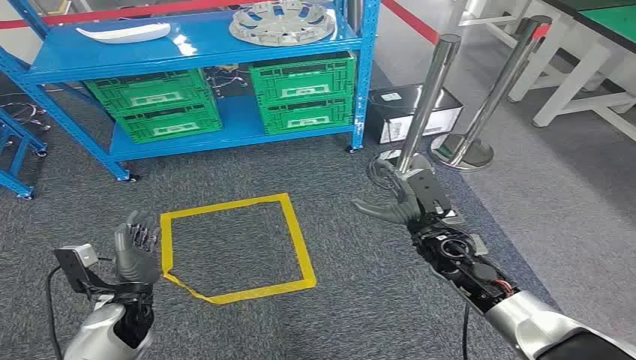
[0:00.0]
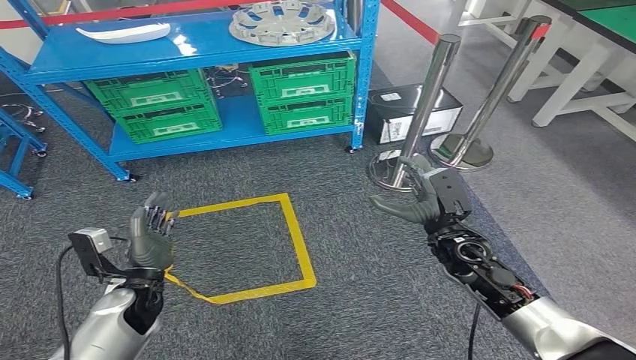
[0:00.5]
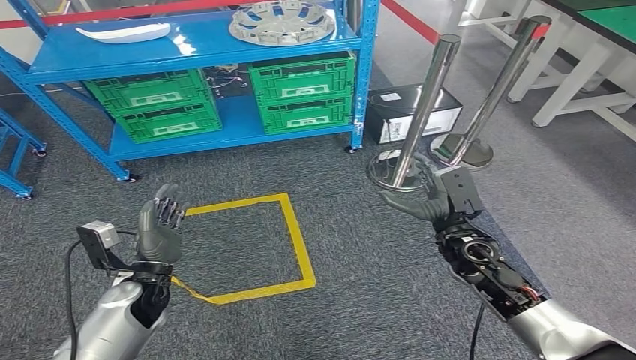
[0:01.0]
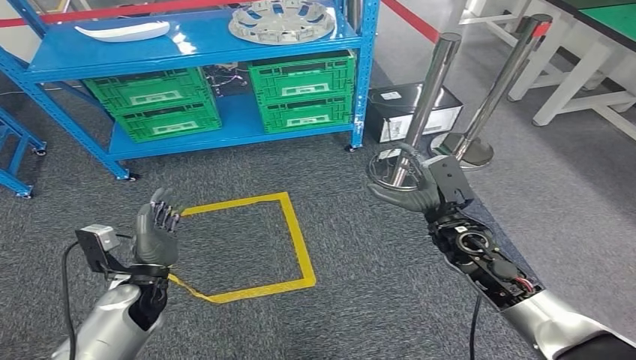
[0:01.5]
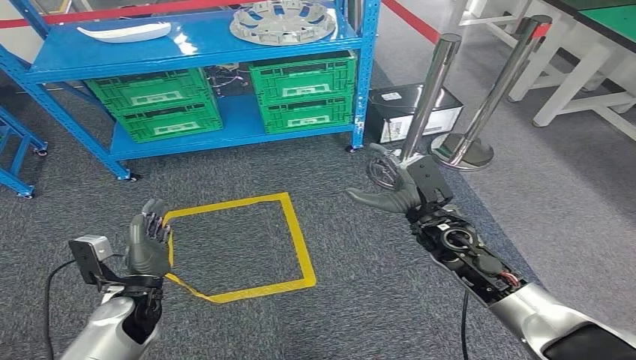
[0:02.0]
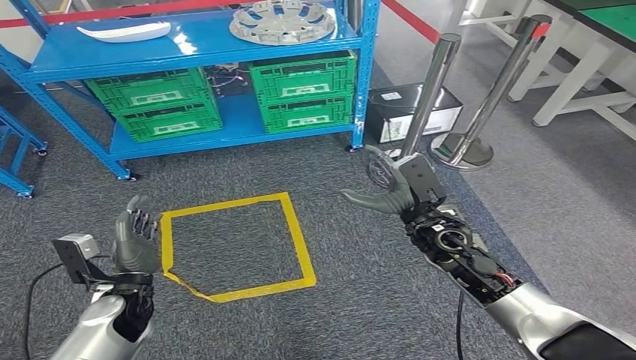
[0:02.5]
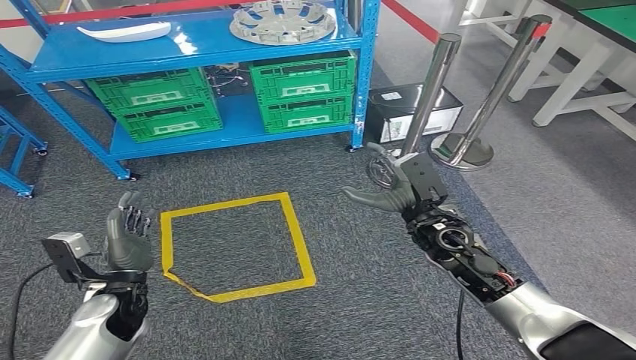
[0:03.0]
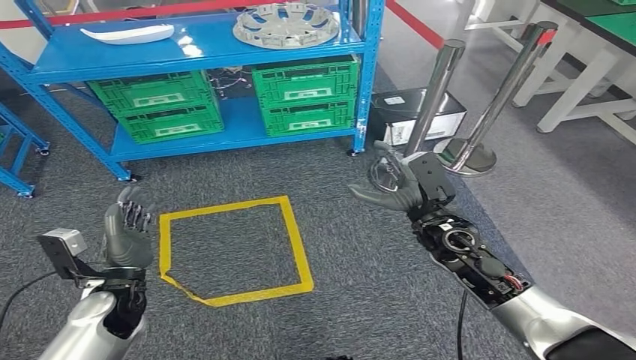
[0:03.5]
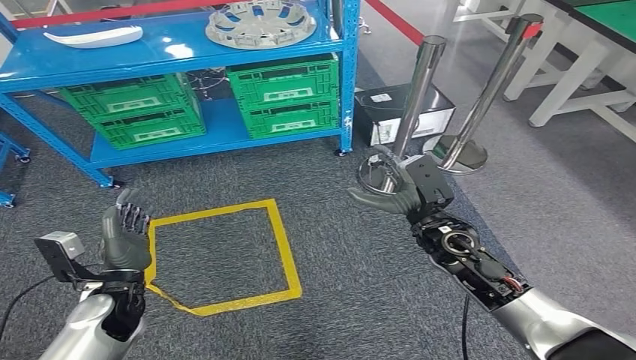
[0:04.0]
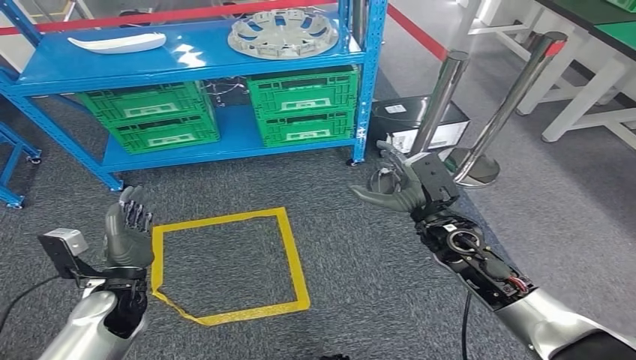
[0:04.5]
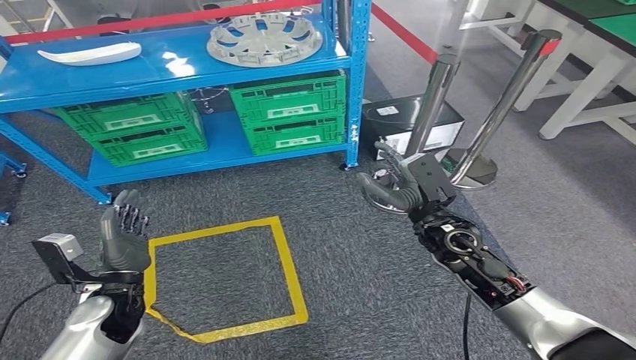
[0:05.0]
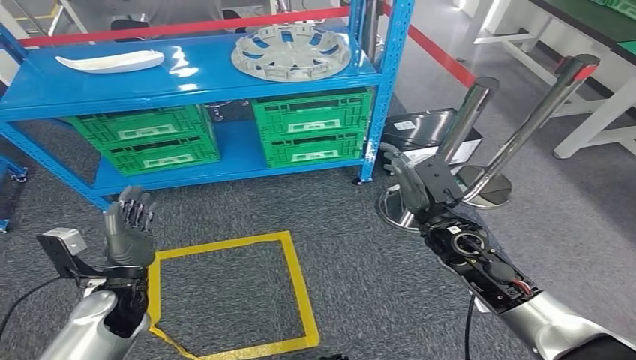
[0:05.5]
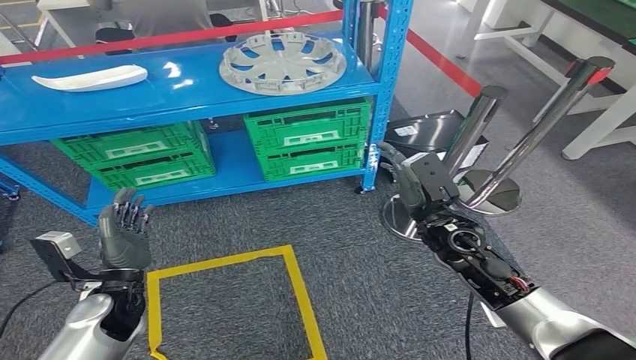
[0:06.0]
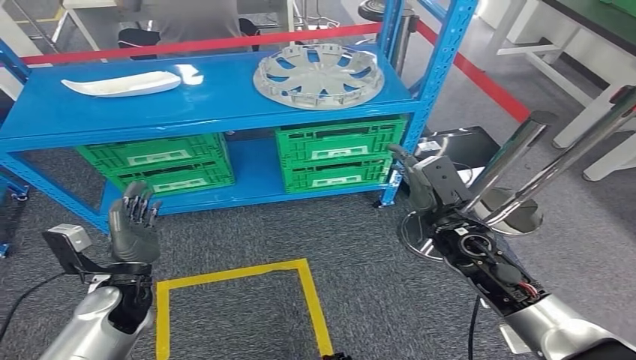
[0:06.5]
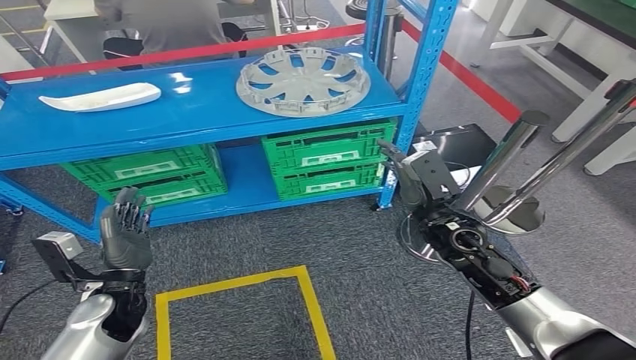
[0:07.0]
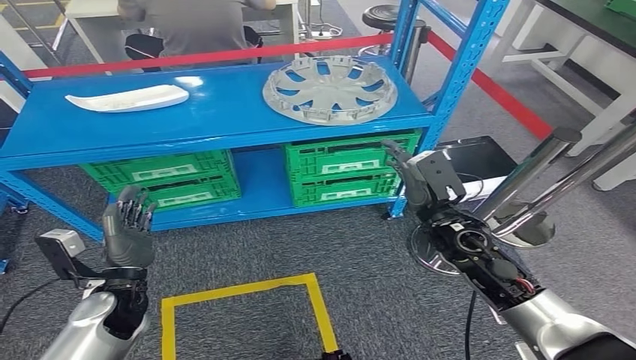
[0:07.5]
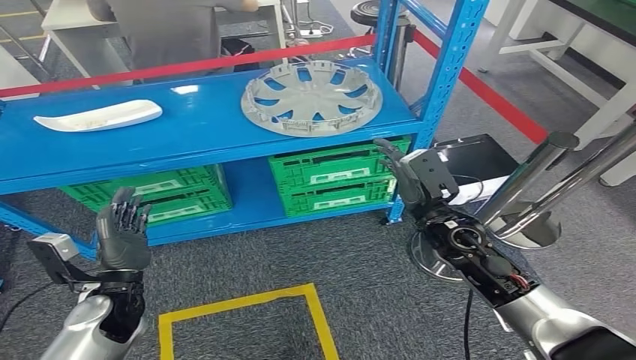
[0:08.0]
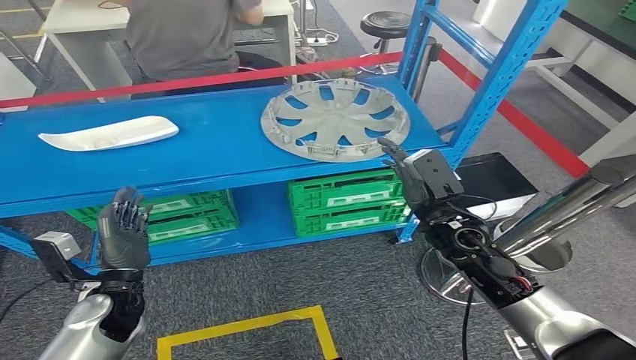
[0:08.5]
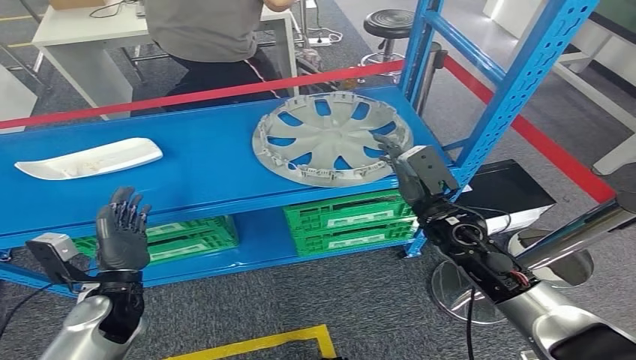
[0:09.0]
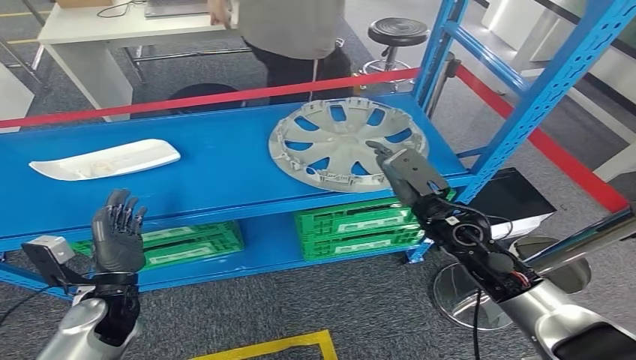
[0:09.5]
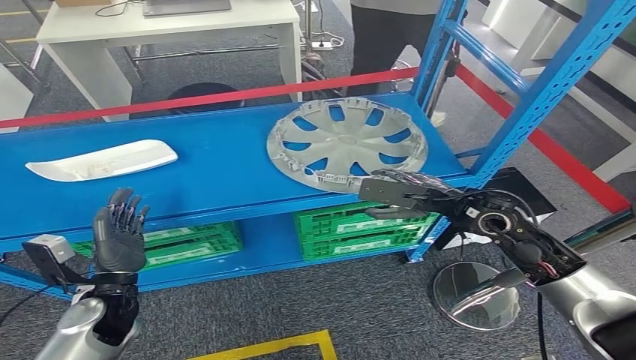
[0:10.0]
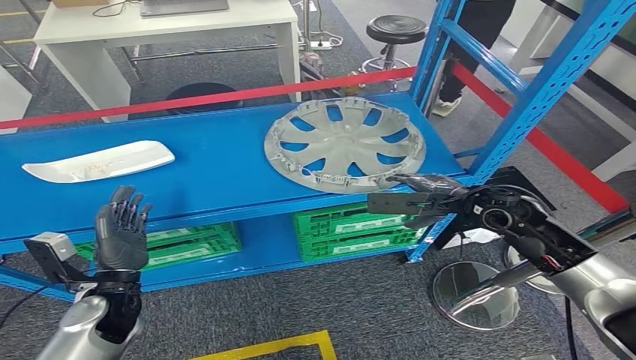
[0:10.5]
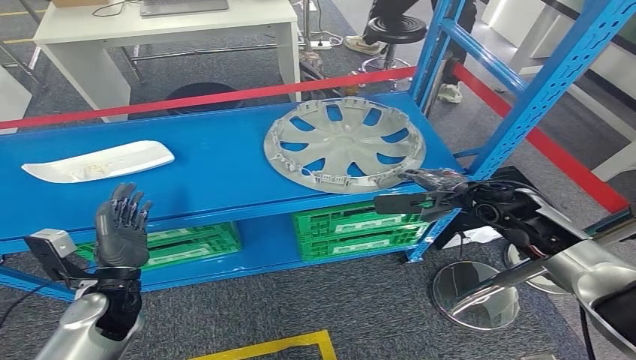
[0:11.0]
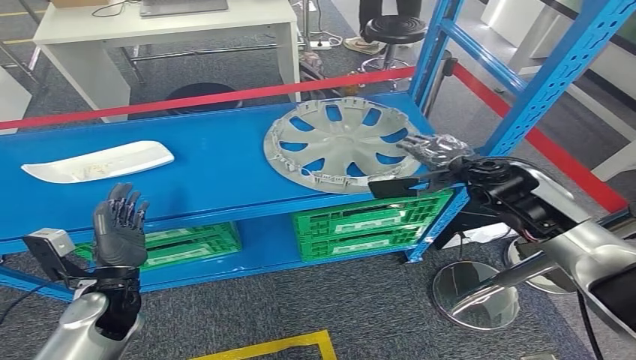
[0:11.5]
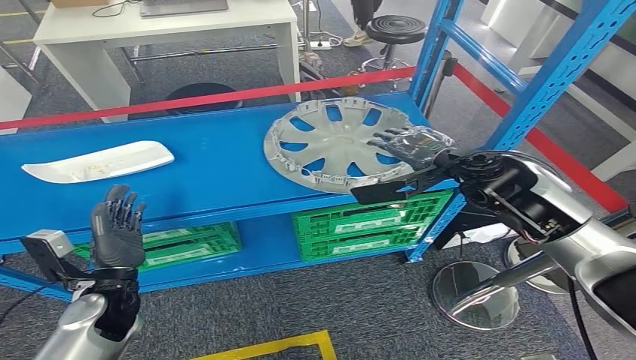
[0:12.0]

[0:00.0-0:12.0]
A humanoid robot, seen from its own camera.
0:10.0 to 0:12.0: The right hand heads upward, covering about 5 cm.

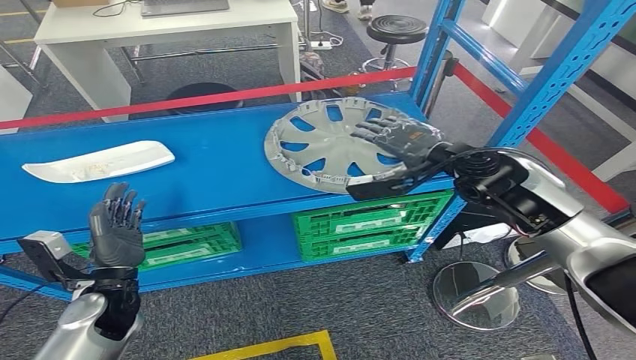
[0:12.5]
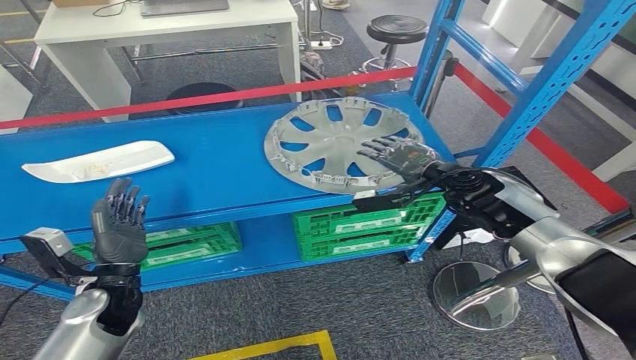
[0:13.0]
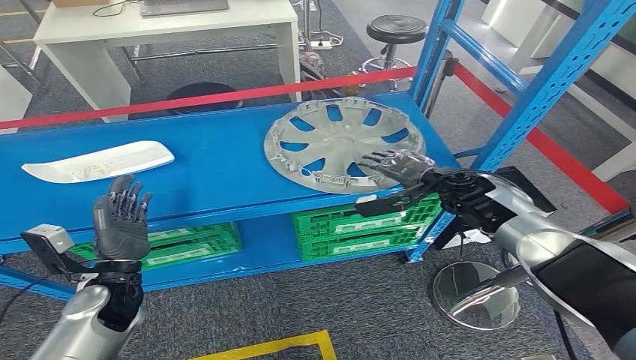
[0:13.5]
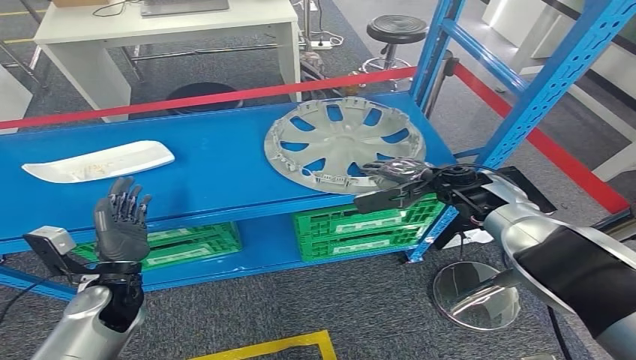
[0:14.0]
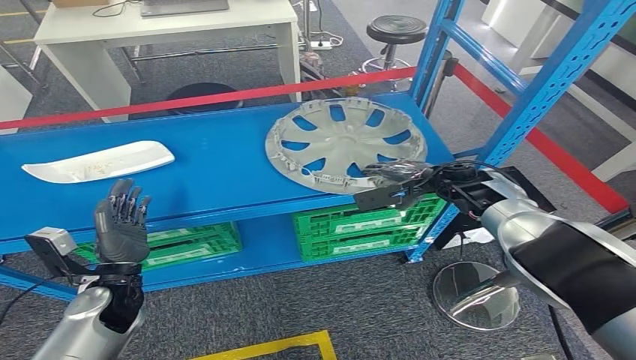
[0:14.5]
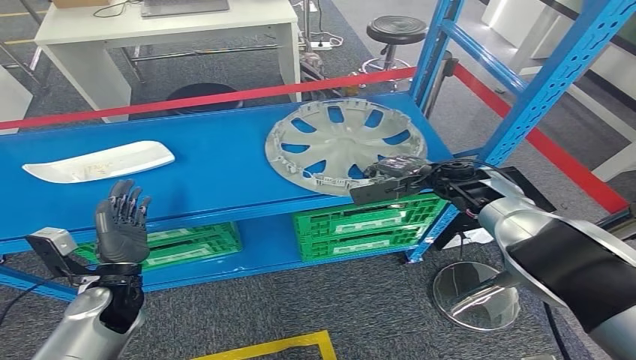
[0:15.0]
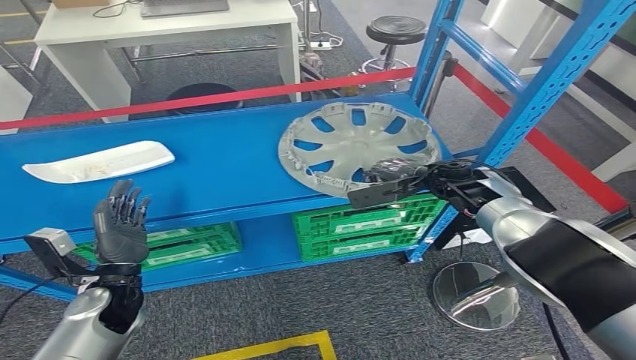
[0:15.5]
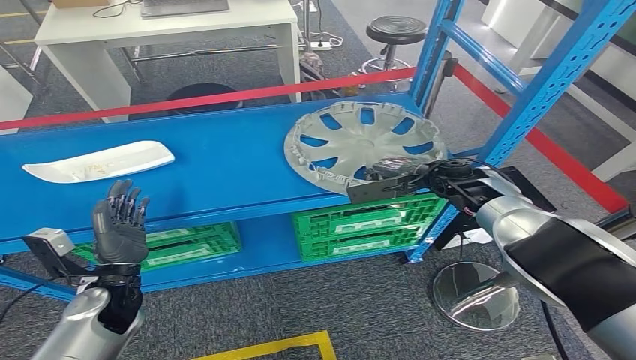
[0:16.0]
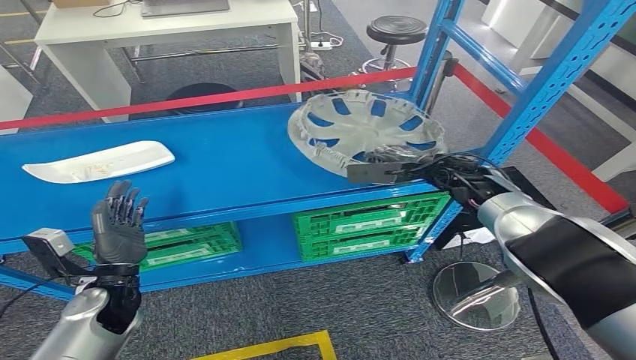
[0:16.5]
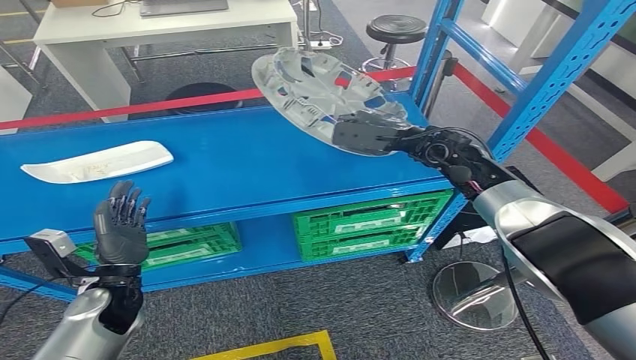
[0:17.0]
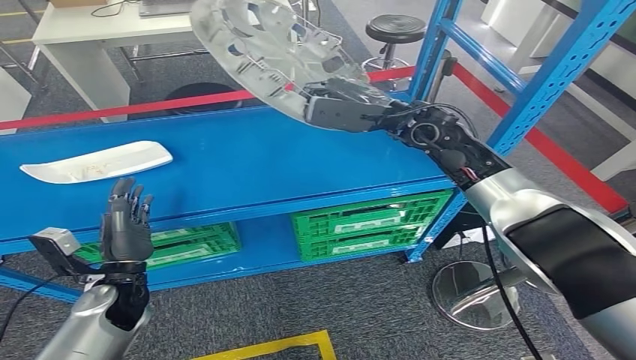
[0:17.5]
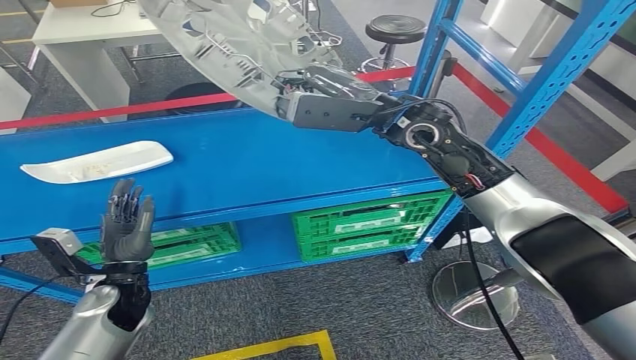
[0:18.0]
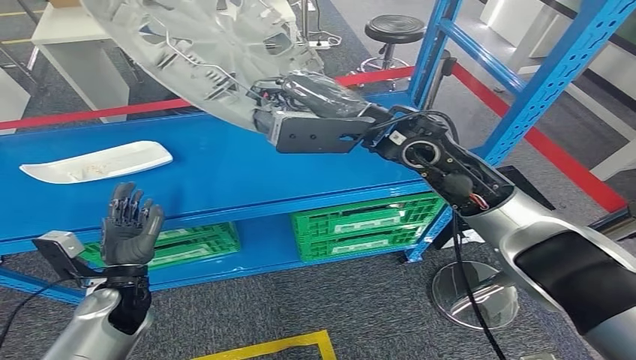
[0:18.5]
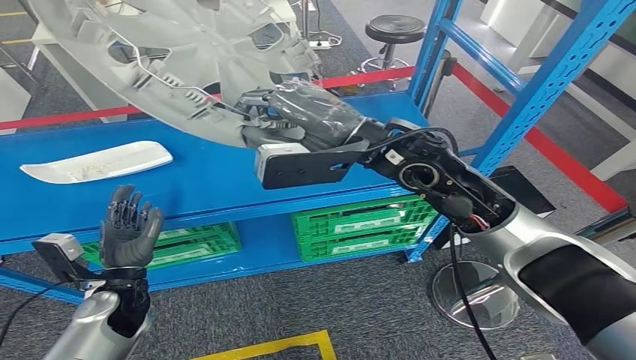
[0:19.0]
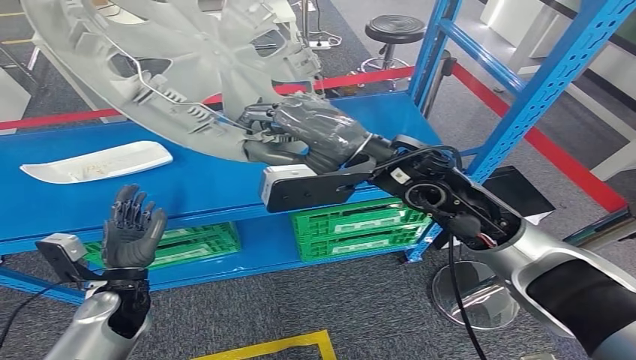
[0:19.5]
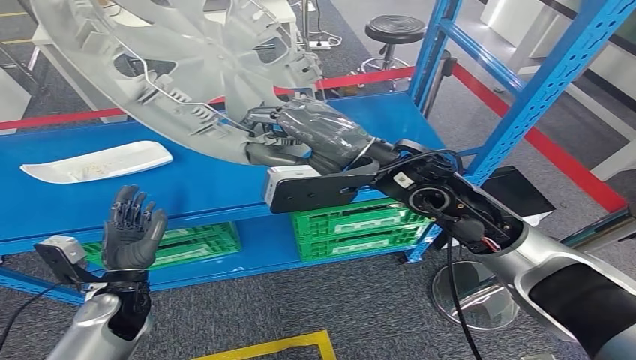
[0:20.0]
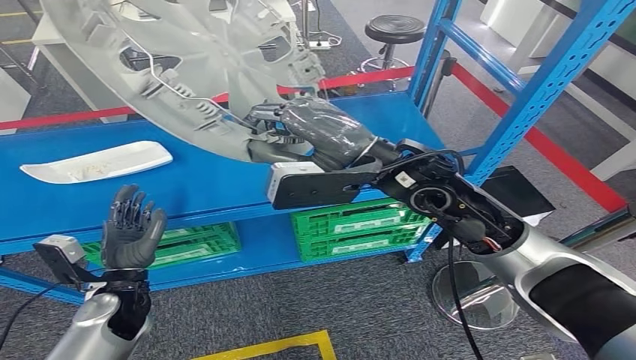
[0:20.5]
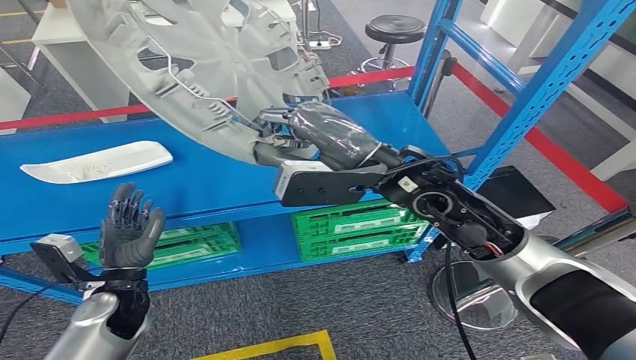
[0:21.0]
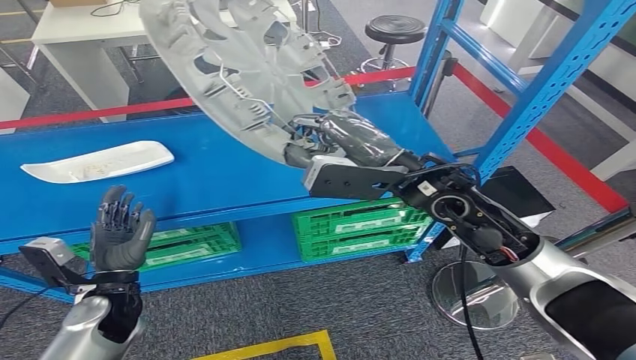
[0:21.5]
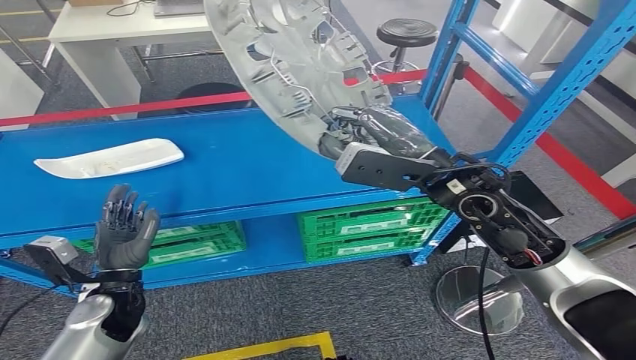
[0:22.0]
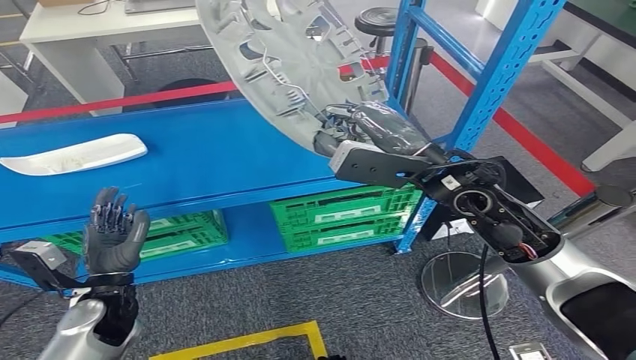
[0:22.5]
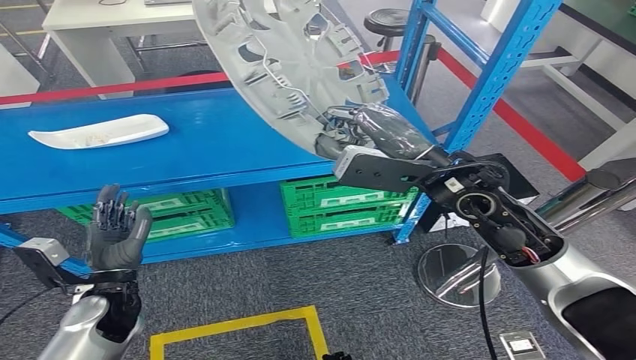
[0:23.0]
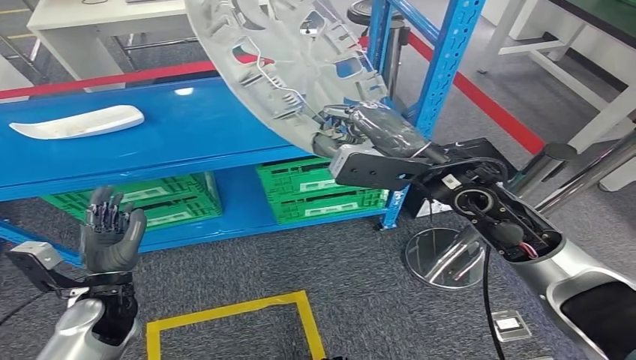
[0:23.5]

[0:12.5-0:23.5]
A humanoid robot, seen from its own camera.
Step, 0:12.5 to 0:19.0: Take small components from the rack.
0:12.5 to 0:14.5: The right hand is displaced downward and forward by about 15 cm.
0:14.5 to 0:16.0: The two hands keep their place.
0:16.0 to 0:18.0: The right hand shifts approximately 20 cm upward and to the left.
